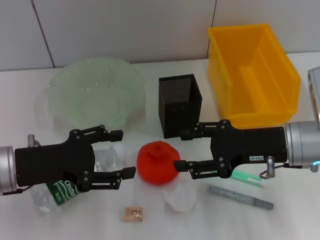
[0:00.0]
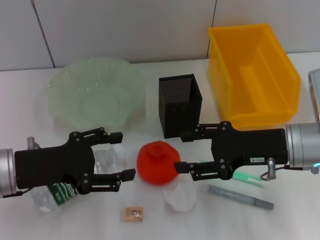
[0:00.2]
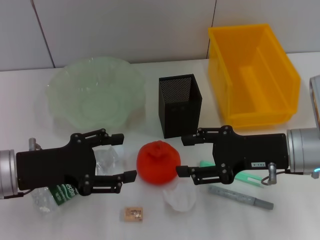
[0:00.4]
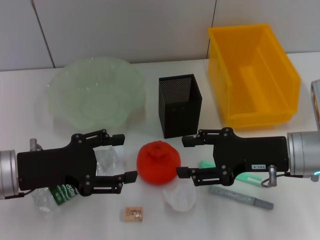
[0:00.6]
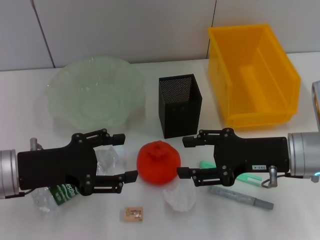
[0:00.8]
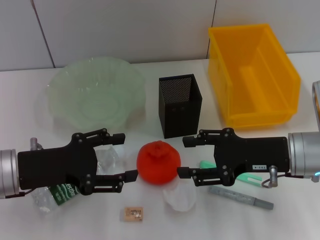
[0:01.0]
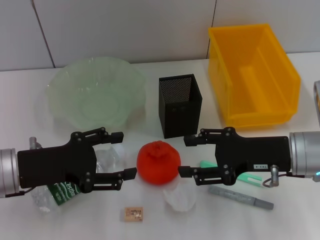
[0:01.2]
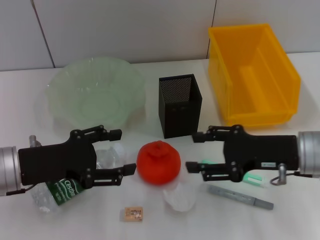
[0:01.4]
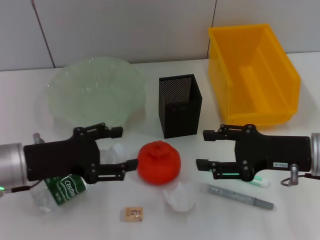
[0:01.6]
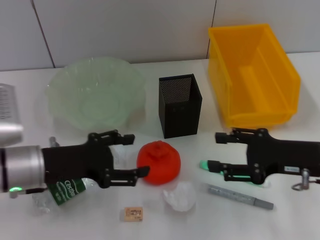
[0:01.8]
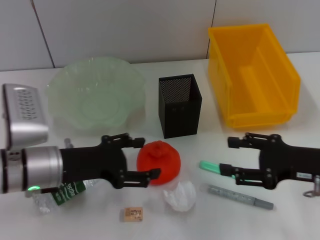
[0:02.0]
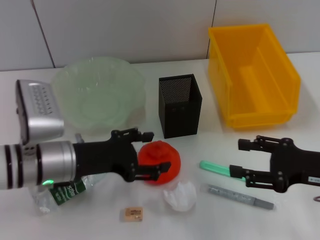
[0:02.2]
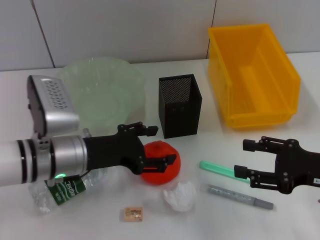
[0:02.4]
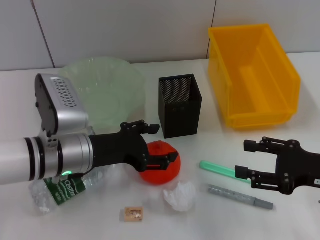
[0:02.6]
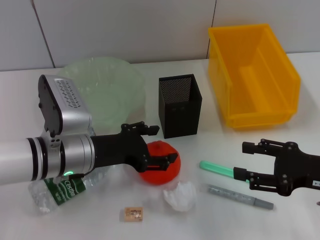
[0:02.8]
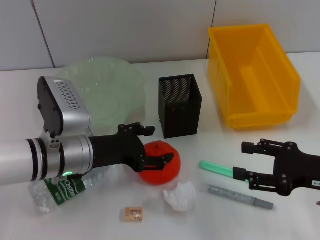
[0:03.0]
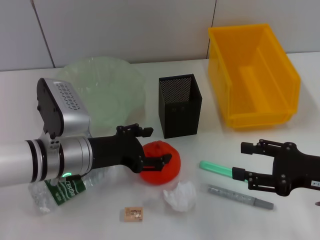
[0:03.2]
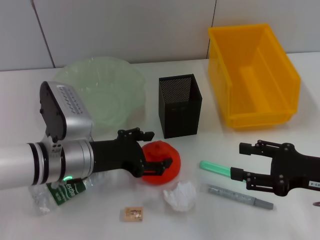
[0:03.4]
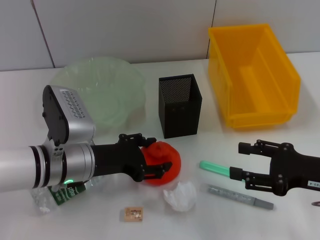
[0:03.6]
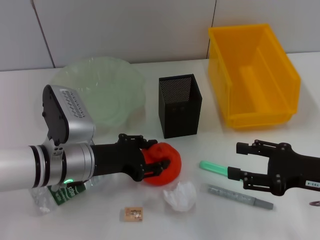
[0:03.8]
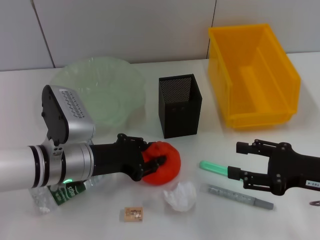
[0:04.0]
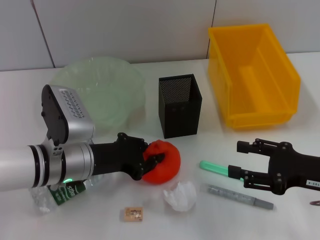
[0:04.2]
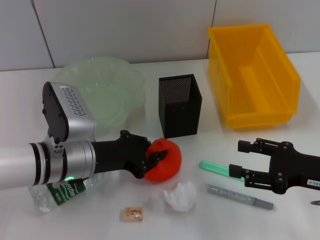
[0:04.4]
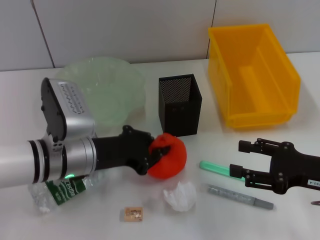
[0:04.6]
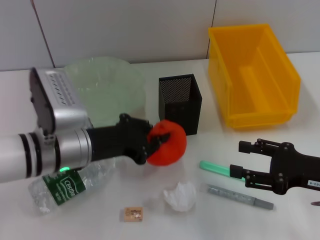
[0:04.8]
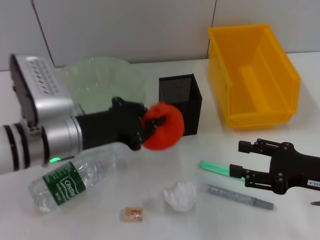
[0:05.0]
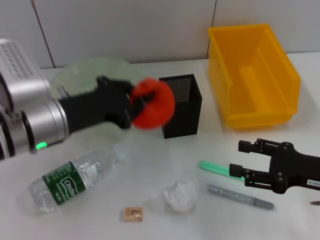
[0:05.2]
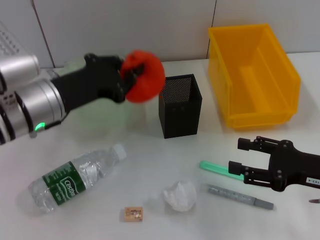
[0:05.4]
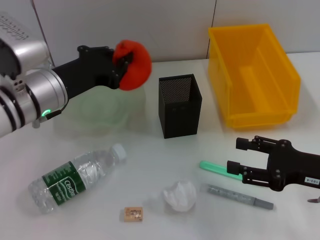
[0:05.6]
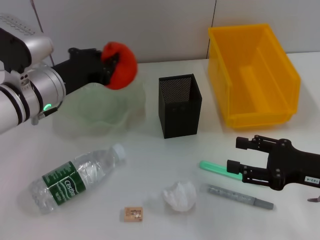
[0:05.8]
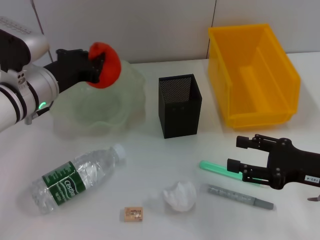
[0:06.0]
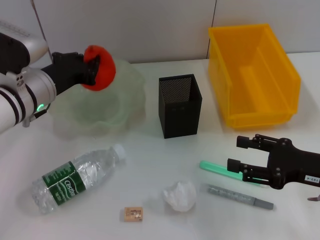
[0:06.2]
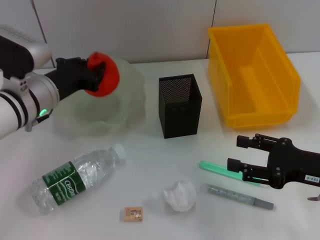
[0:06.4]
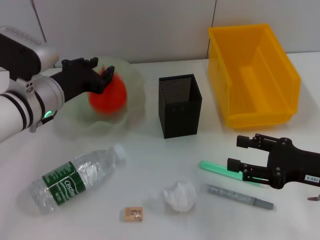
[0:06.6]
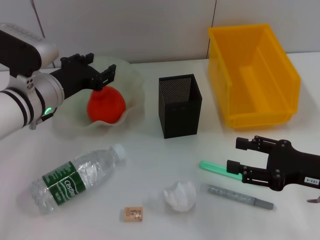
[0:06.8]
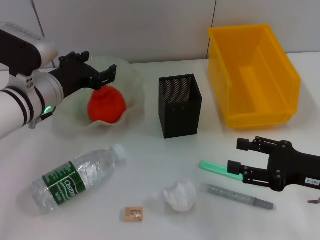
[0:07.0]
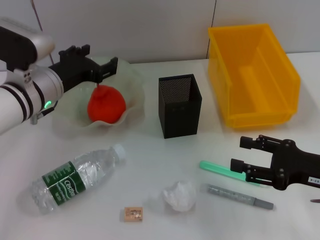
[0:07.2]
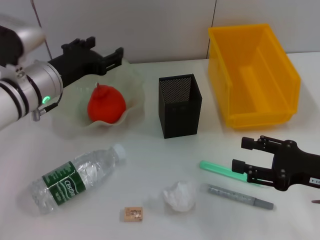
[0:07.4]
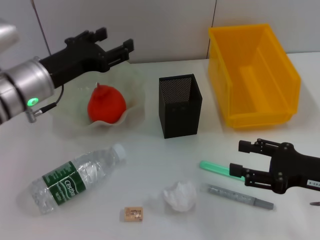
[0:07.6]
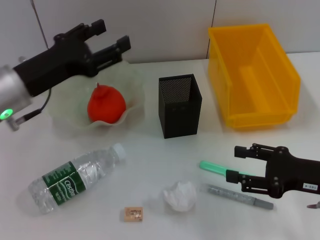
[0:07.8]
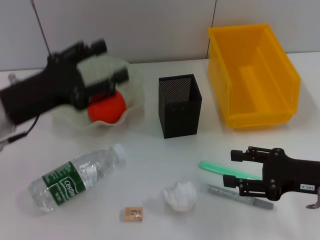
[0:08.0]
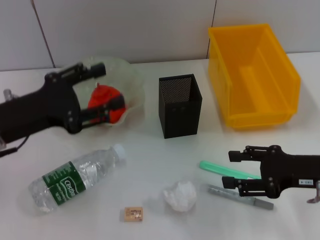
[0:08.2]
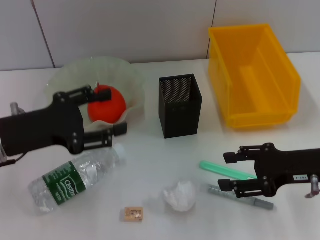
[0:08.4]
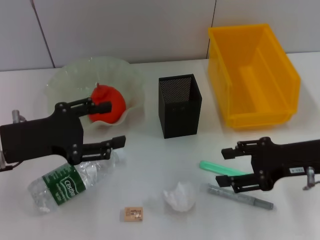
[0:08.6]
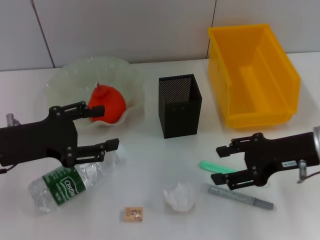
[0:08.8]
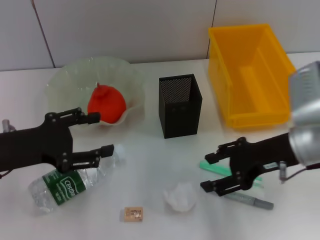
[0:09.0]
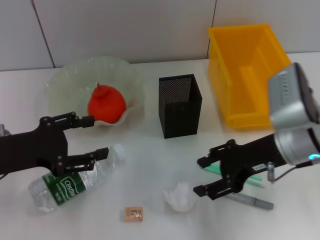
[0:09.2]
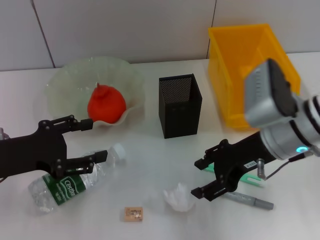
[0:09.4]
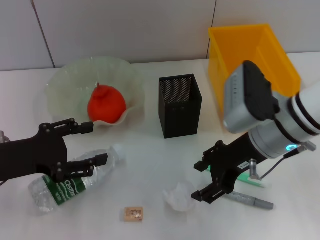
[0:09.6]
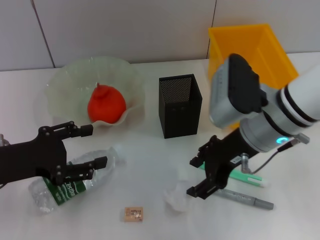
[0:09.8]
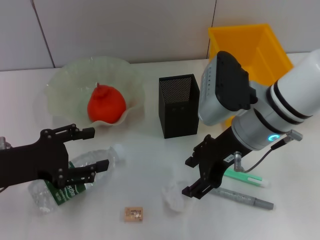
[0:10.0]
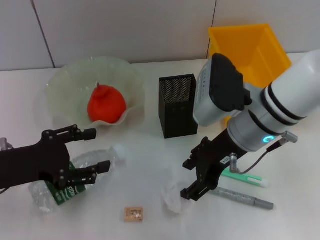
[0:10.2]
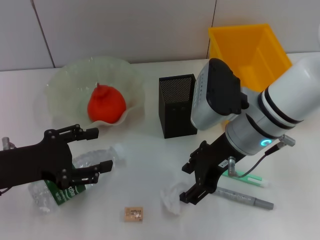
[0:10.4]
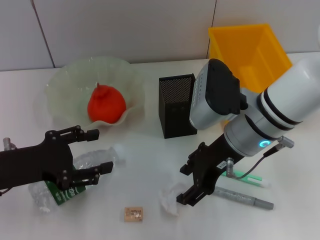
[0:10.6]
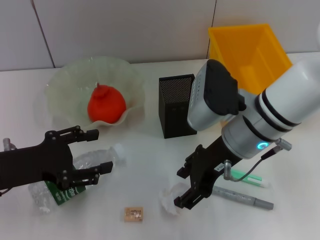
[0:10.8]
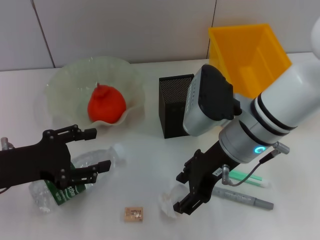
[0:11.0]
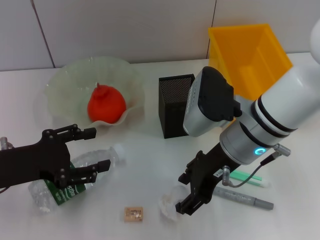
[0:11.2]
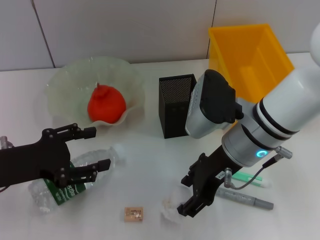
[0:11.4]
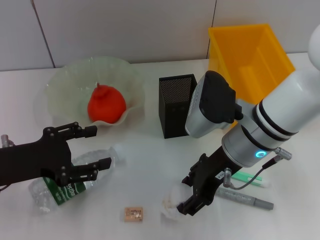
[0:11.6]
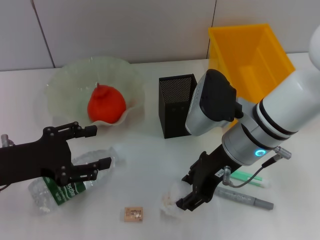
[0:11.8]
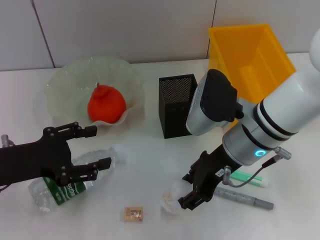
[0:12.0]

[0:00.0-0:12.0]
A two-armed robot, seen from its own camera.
Step, 0:00.0 to 0:04.0: Grab the orange with the left hand.
Step, 0:04.2 to 0:06.8: Place the orange into the fruit bowl with the left hand.
Step, 0:07.0 to 0:11.8: Grab the paper ball with the right hand.
0:00.0 to 0:01.6: The grippers make only small movements.
0:01.6 to 0:03.0: The left gripper heads to the right, covering roughly 10 cm; the right gripper changes place by approximately 5 cm.
0:03.0 to 0:04.4: The left gripper closes up.
0:04.4 to 0:06.0: The left gripper moves forward and upward, approximately 10 cm.
0:06.0 to 0:07.6: The left gripper opens up.
0:07.6 to 0:09.0: The left gripper shifts approximately 10 cm backward and to the left, while the right gripper shifts some 10 cm forward and to the left.
0:09.0 to 0:10.4: The right gripper goes about 10 cm to the left.
0:10.4 to 0:12.0: The grippers stay close to where they were, moving slightly.

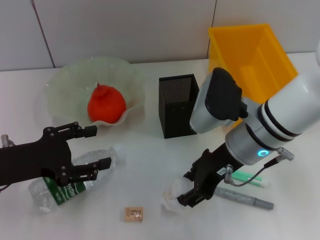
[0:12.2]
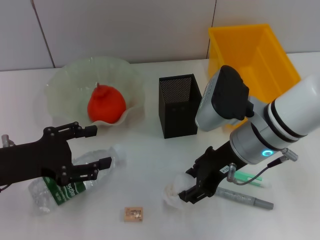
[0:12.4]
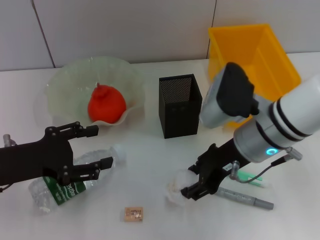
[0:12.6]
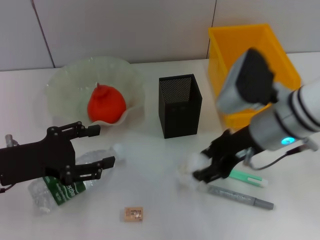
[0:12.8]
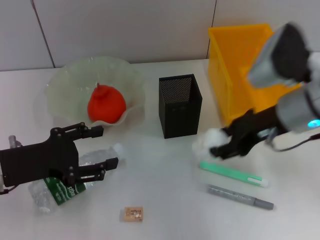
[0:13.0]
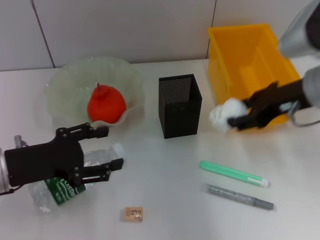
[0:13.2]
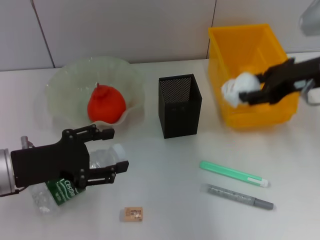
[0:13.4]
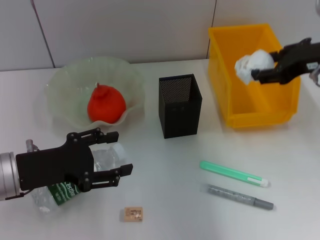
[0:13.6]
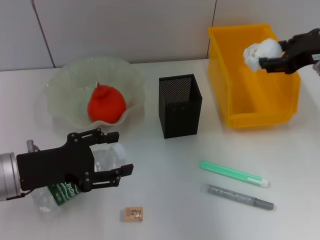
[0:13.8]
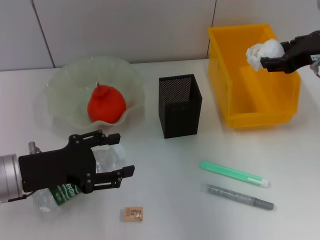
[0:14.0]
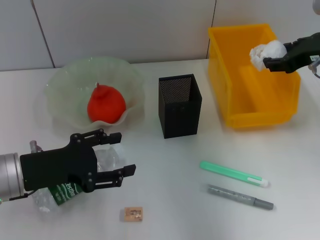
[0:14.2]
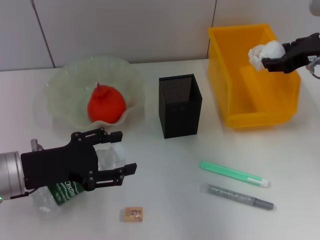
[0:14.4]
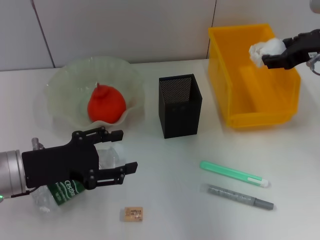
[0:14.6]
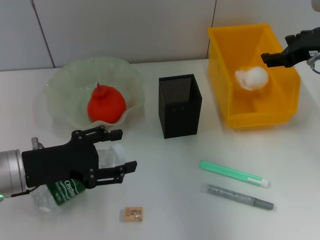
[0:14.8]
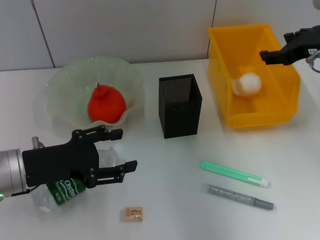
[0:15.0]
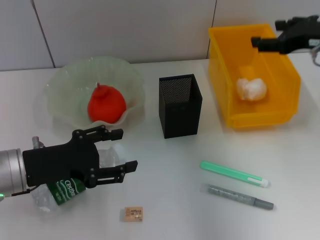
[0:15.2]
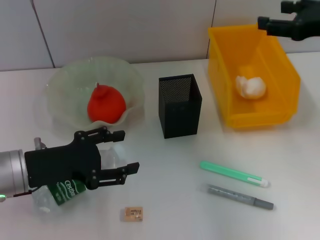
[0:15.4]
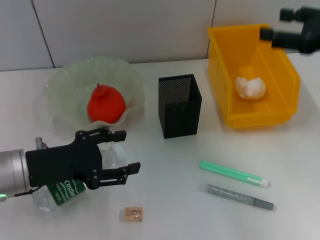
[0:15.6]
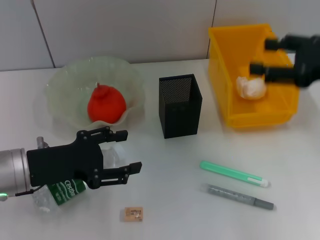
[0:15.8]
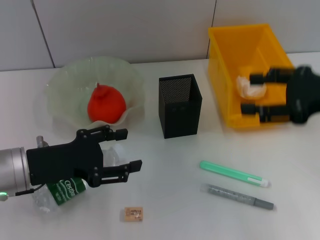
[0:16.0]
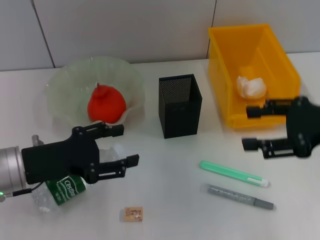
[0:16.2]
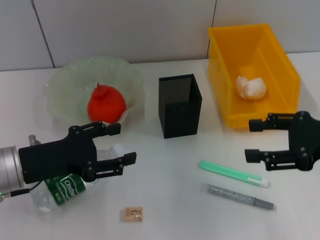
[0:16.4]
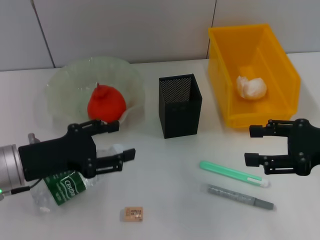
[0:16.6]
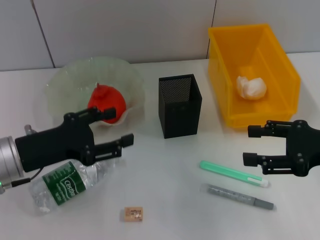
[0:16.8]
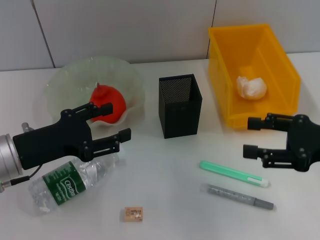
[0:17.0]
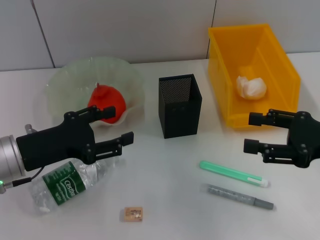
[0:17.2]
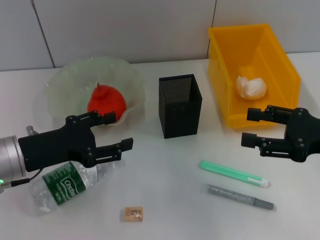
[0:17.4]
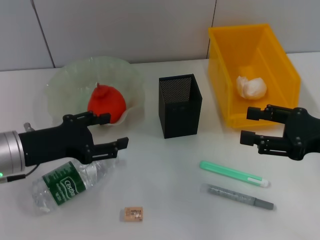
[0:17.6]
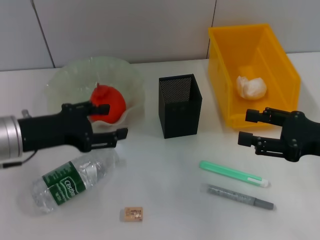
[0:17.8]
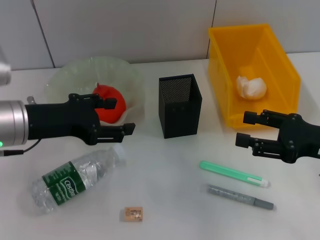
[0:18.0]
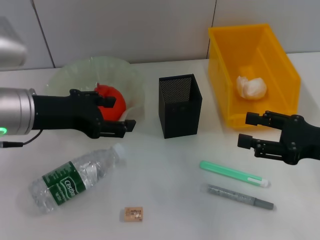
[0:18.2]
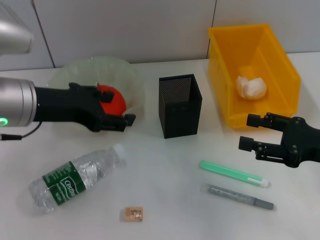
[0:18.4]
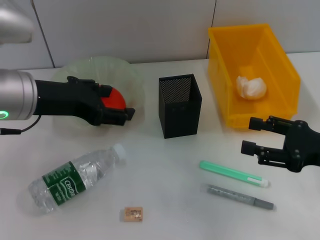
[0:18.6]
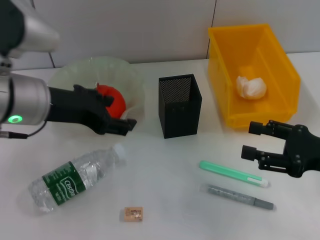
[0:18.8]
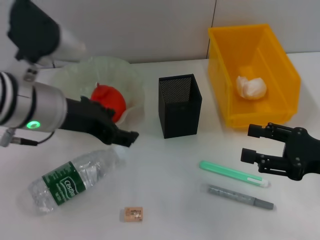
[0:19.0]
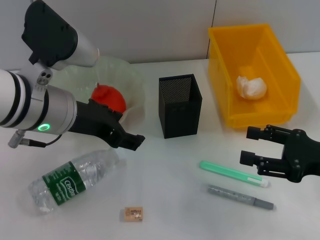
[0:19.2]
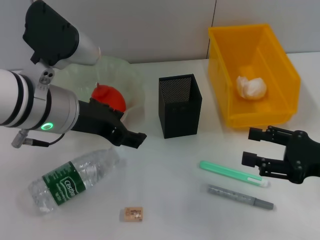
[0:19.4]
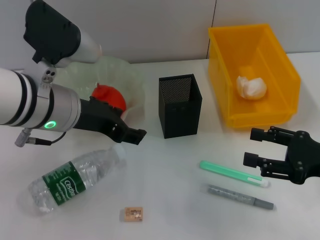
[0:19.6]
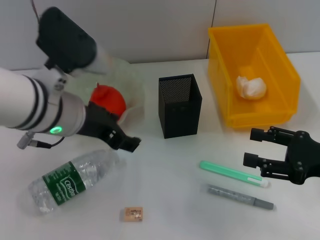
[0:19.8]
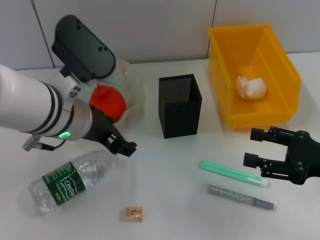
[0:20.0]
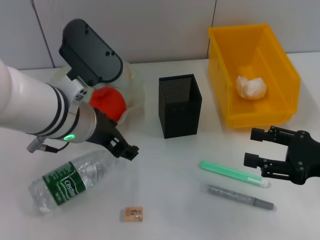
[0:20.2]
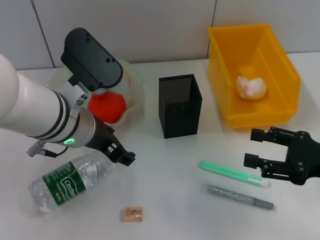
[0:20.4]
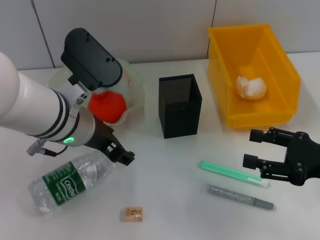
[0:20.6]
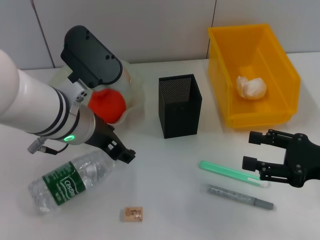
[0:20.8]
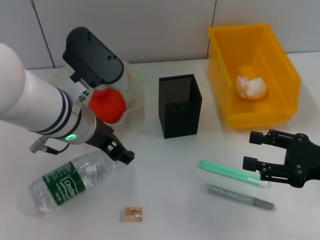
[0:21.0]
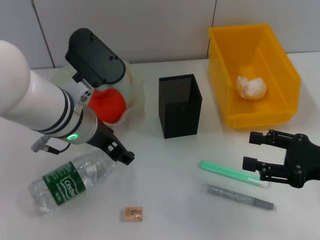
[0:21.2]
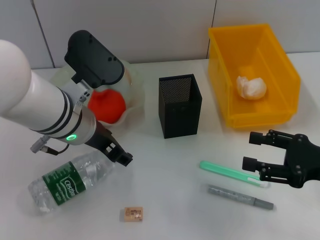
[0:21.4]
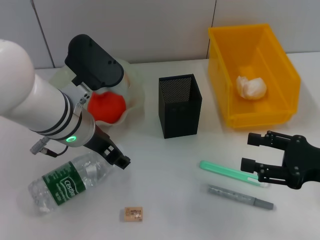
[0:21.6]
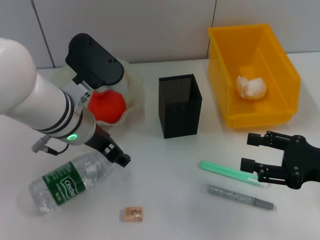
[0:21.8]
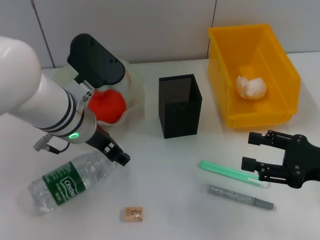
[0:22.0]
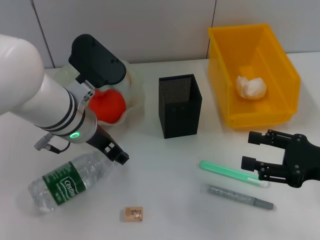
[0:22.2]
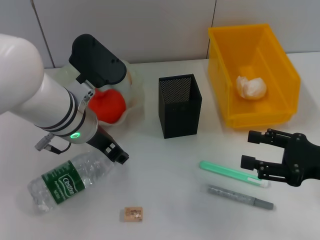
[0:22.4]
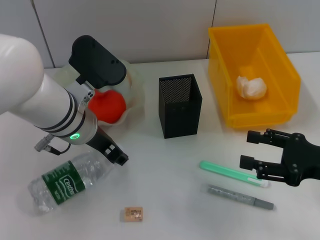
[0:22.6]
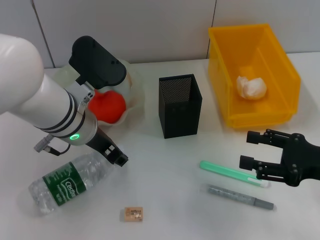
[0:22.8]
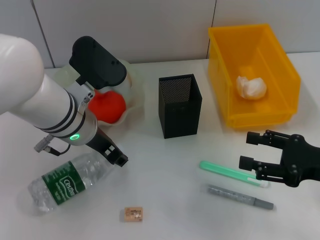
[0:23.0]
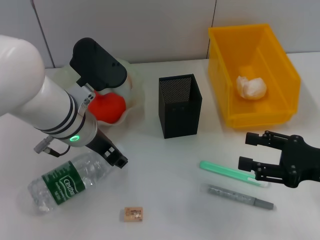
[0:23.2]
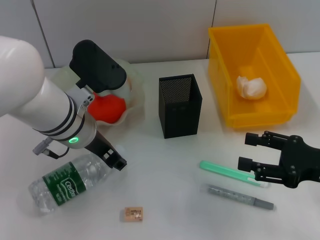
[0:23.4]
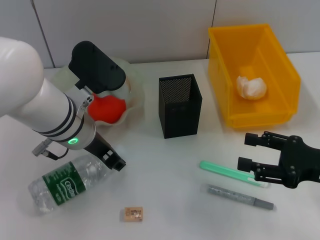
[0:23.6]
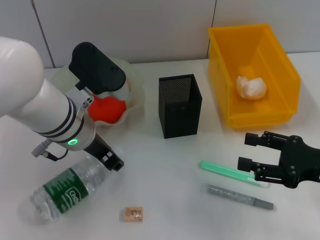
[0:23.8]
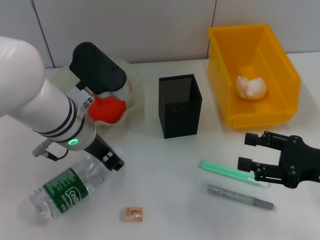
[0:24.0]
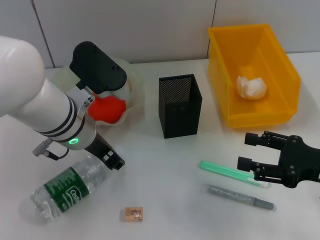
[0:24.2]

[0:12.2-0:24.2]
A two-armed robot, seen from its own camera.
Step, 0:12.2 to 0:15.0: Place the paper ball into the trash can with the right hand.
Step, 0:15.4 to 0:23.8: Grab the water bottle with the left hand.
0:12.2 to 0:13.8: The right gripper travels to the right and upward by roughly 15 cm.
0:13.8 to 0:15.2: There are only small adjustments of the grippers.
0:15.2 to 0:16.6: The right gripper moves backward and downward, approximately 15 cm.
0:16.6 to 0:18.2: The left gripper moves upward, roughly 10 cm.
0:18.2 to 0:19.8: The left gripper heads to the right, covering roughly 5 cm.
0:19.8 to 0:22.6: The grippers make only small movements.
0:22.6 to 0:24.2: Both grippers stay about where they are.
